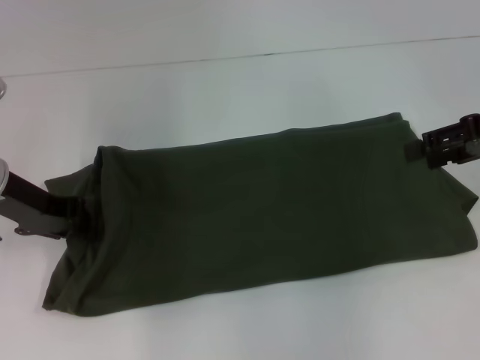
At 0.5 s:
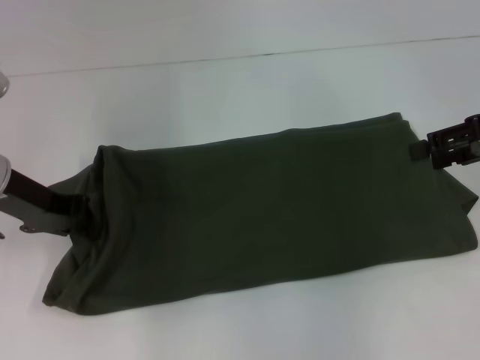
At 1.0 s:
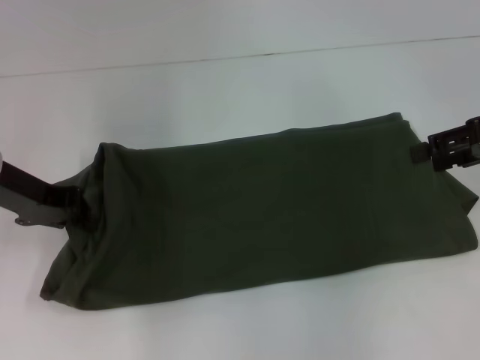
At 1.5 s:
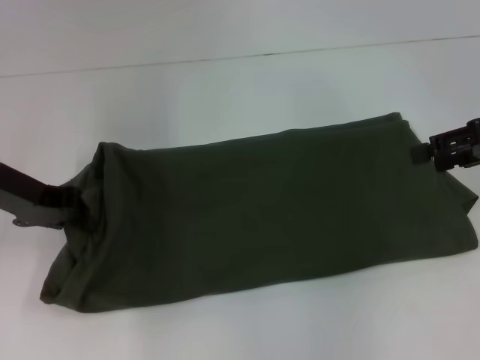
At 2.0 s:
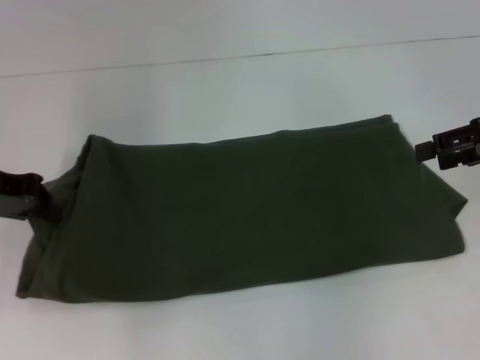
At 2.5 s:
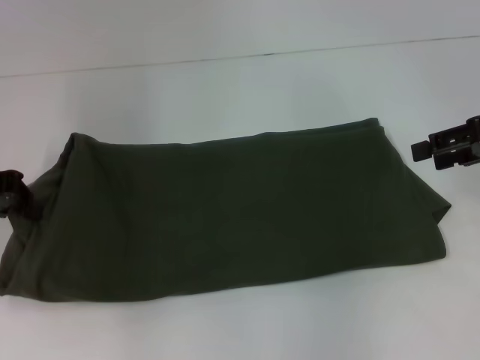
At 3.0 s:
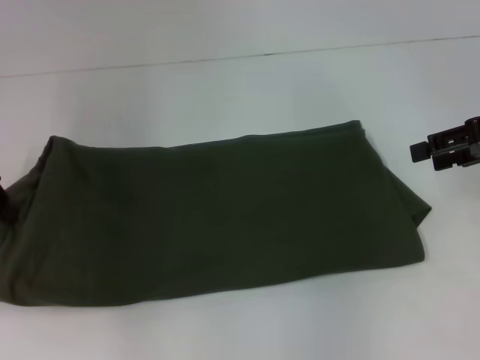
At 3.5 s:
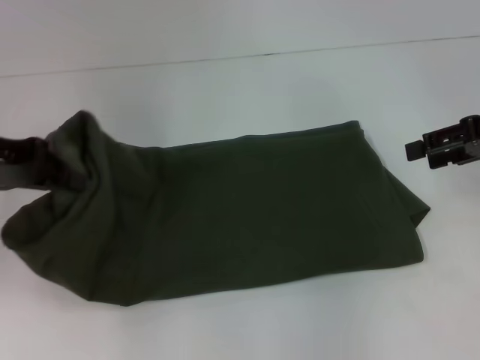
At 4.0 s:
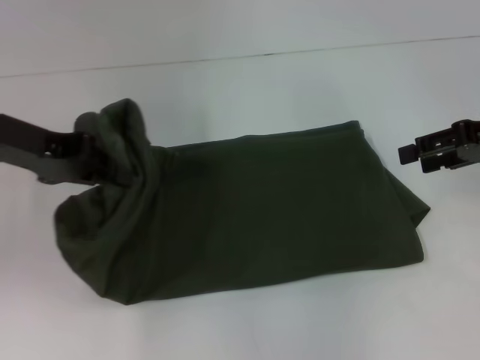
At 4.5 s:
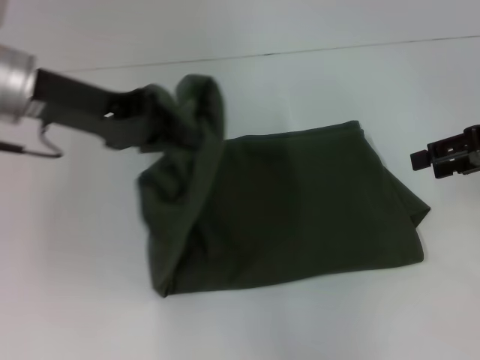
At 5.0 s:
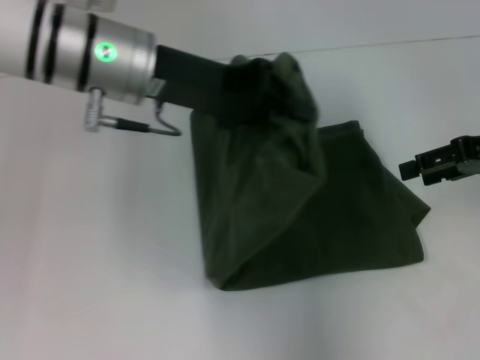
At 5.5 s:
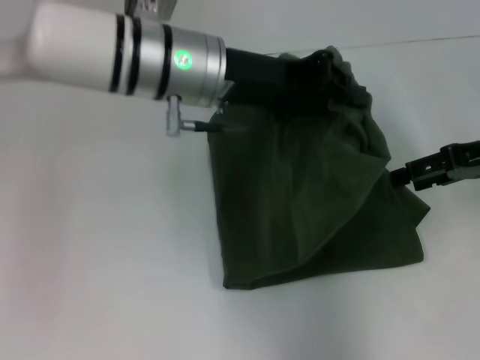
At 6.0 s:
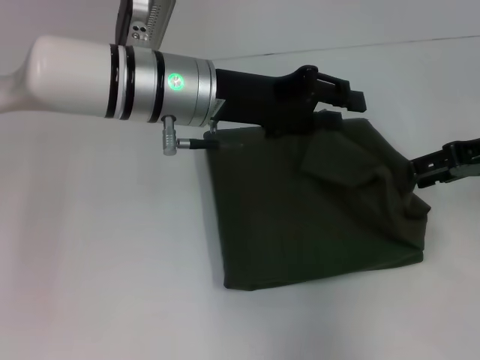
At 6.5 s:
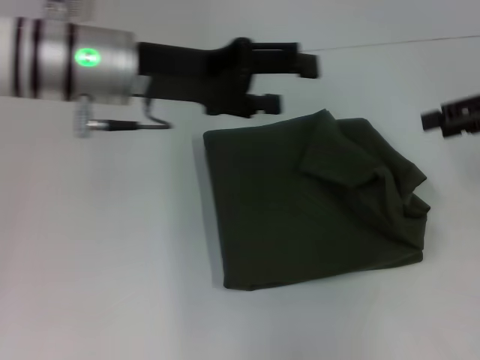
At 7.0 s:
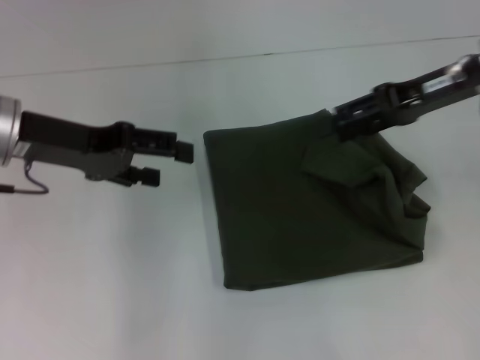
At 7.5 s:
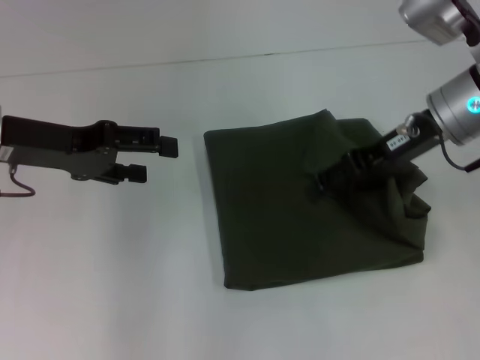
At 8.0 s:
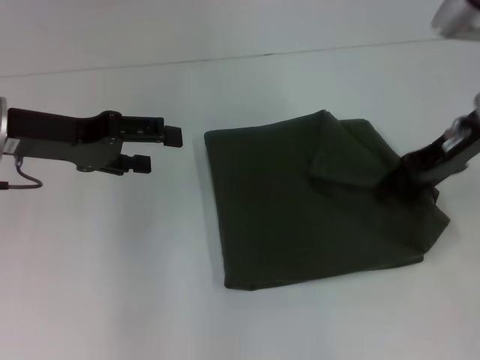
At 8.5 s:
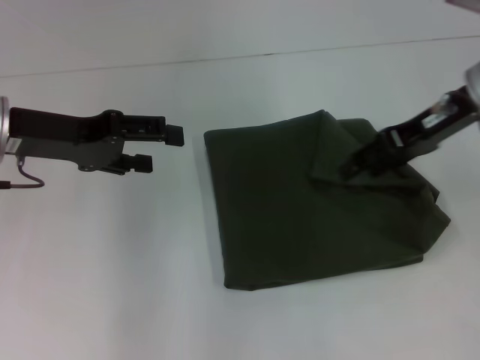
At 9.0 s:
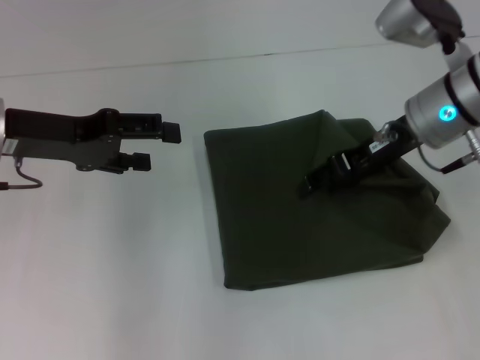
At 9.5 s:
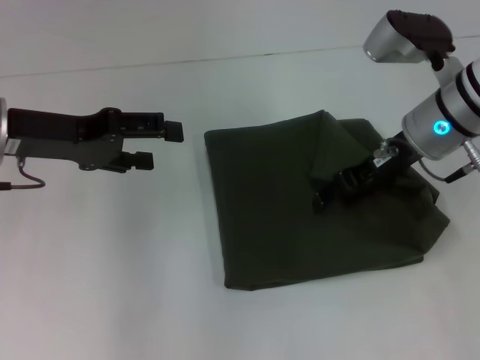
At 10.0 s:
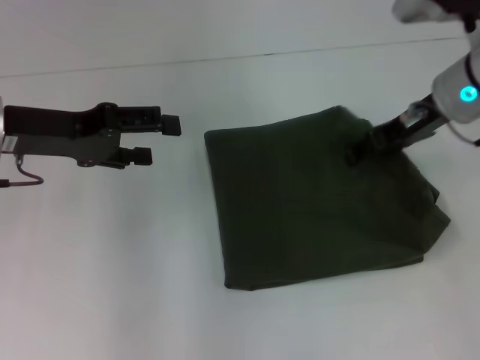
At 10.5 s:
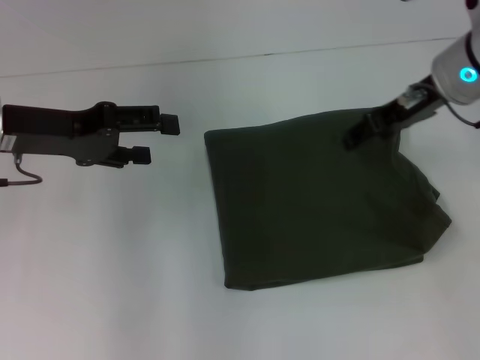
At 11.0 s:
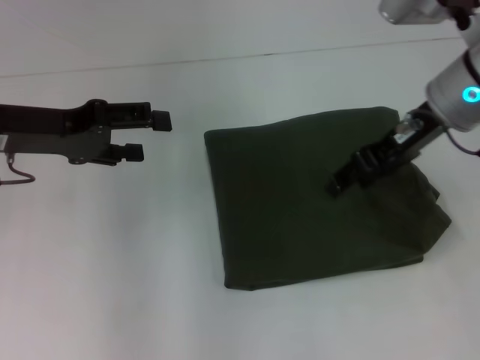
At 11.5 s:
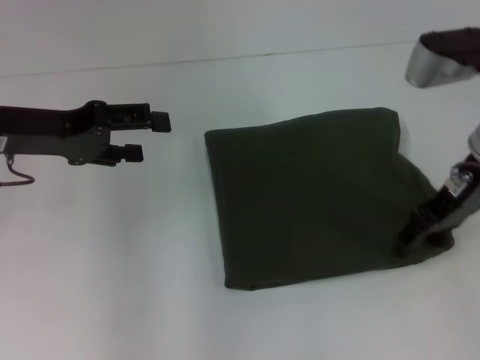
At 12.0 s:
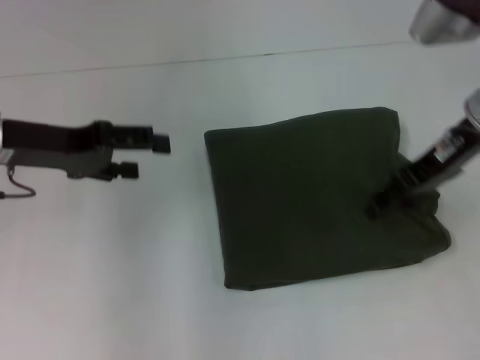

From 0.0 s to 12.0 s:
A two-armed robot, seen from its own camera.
Step, from 0.0 s to 6.0 s: Fold the clothes with your left hand.
From 0.0 s to 2.0 s: The left gripper changes place by roughly 5 cm.
From 2.0 s to 4.0 s: The left gripper changes place by roughly 5 cm.
From 4.0 s to 6.0 s: The left gripper shifts approximately 20 cm to the right.
From 6.0 s to 8.0 s: The right gripper heads to the left, covering approximately 5 cm; the left gripper goes roughly 15 cm to the left, and opens its fingers.

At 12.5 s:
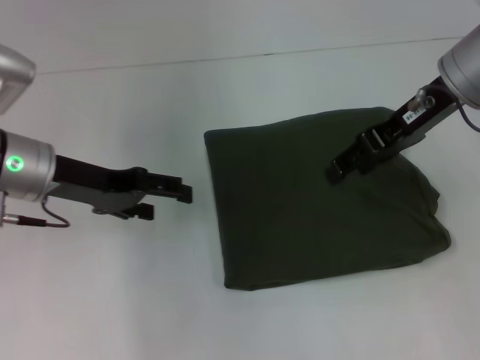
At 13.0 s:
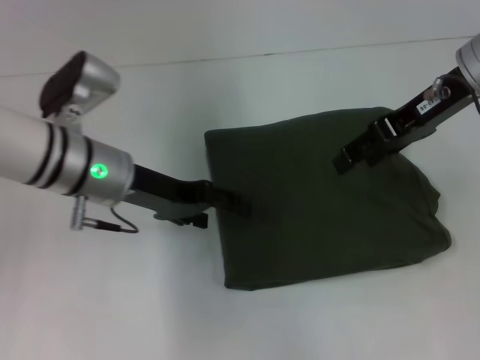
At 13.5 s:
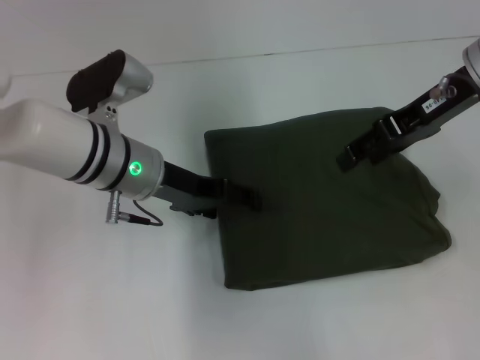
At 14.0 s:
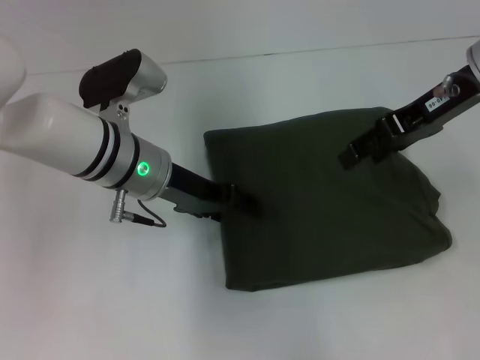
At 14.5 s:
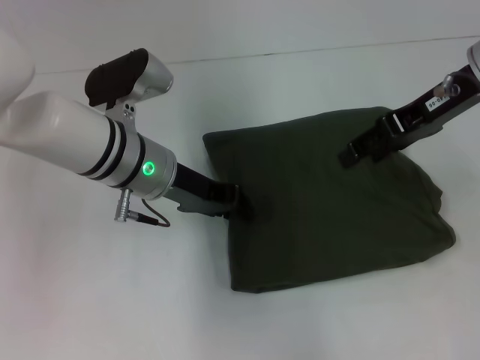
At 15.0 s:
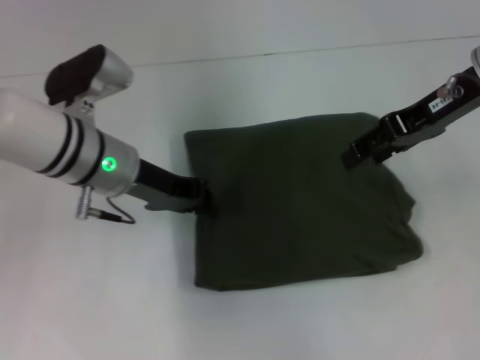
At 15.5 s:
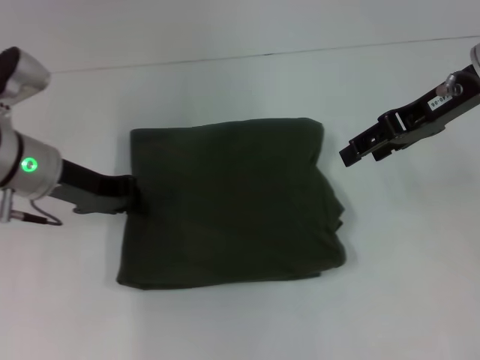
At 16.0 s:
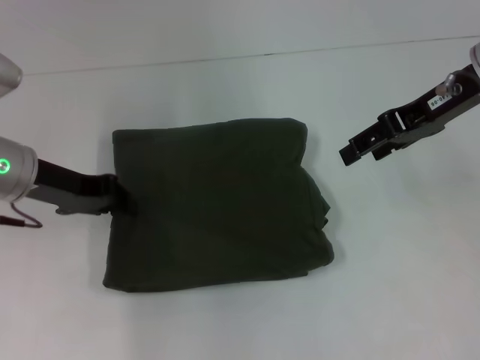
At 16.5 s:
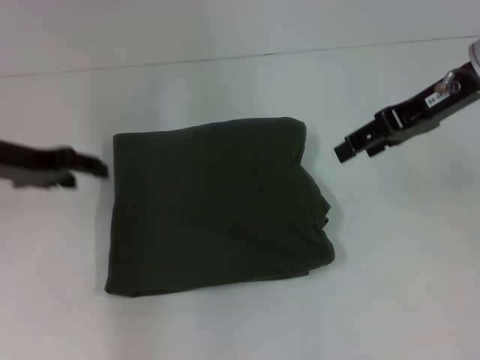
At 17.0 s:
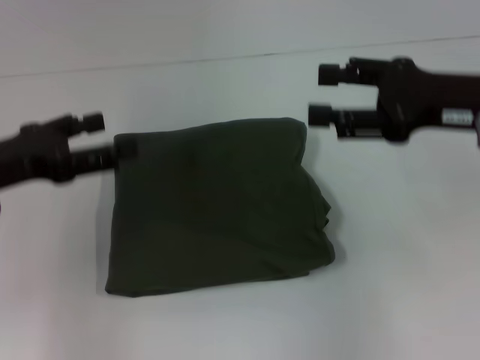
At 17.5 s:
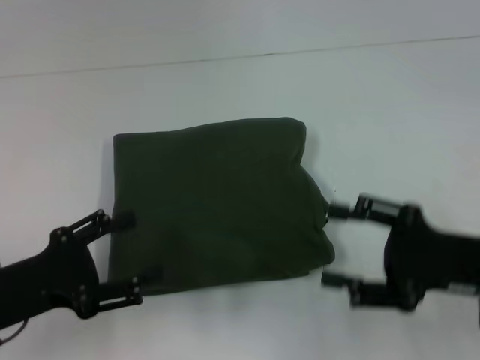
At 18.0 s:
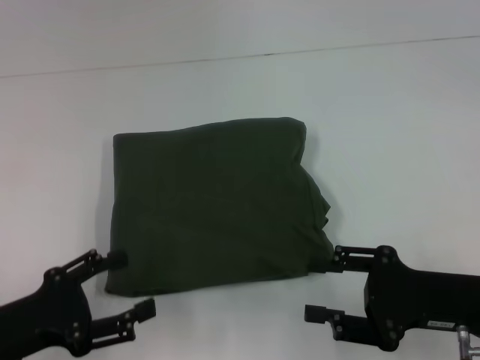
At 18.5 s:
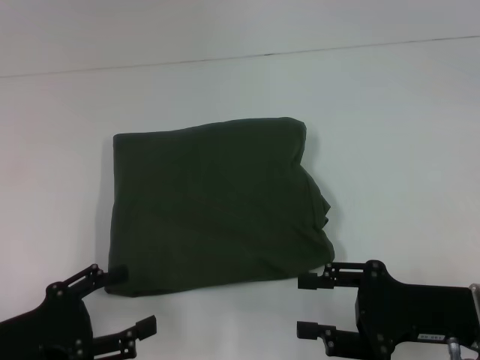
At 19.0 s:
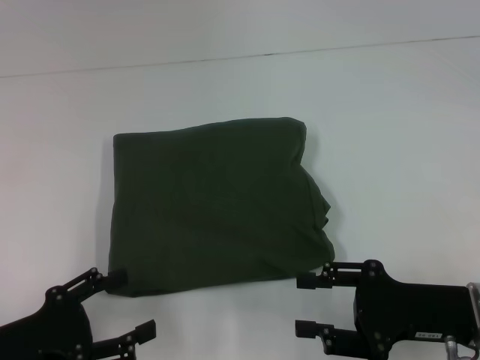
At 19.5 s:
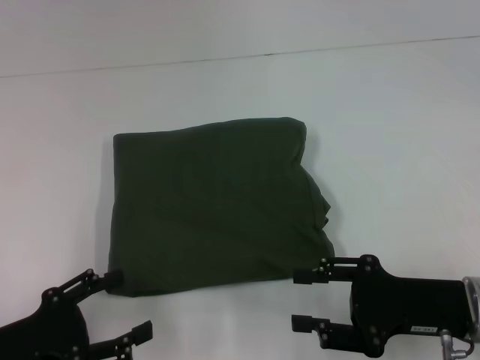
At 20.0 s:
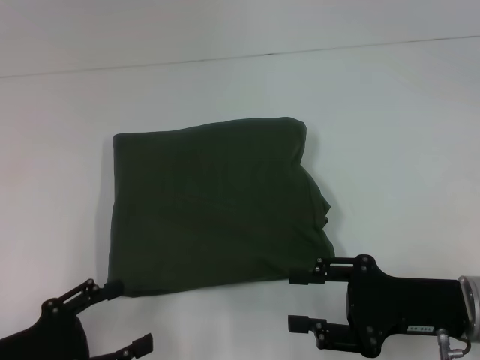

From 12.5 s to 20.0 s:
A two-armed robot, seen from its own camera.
From 12.5 s to 14.5 s: The left gripper travels to the right by about 10 cm, and closes.
From 14.5 s to 16.5 s: The left gripper moves to the left, some 15 cm.
From 16.5 s to 18.0 s: The grippers both shift backward and downward by some 20 cm. The left gripper opens up.
From 18.0 s to 20.0 s: The grippers make only small movements.
